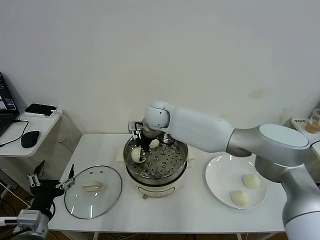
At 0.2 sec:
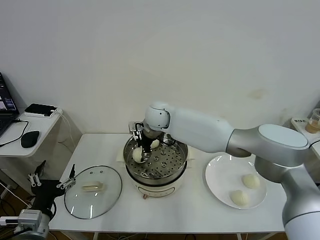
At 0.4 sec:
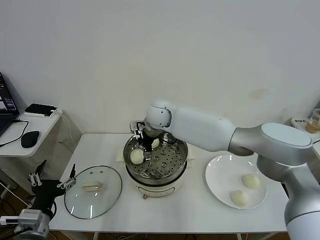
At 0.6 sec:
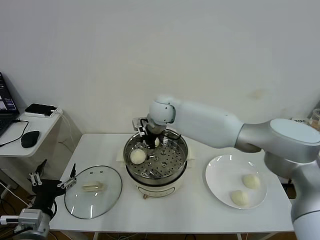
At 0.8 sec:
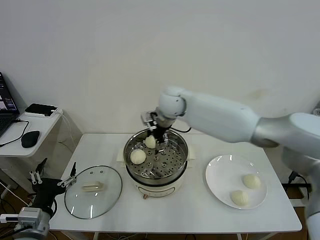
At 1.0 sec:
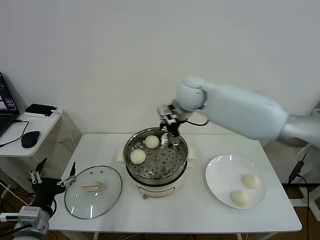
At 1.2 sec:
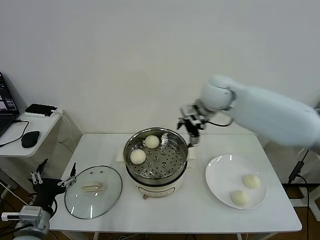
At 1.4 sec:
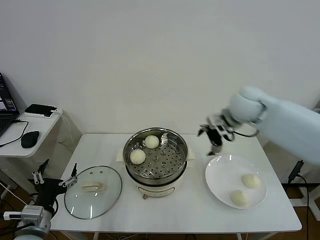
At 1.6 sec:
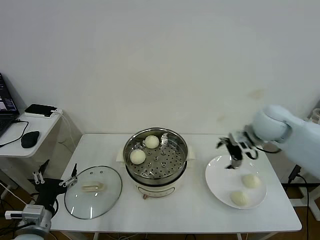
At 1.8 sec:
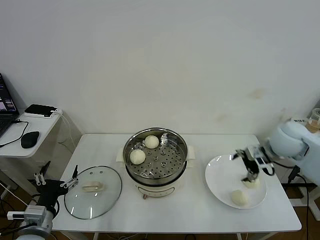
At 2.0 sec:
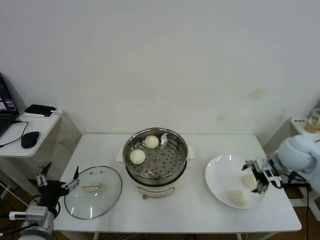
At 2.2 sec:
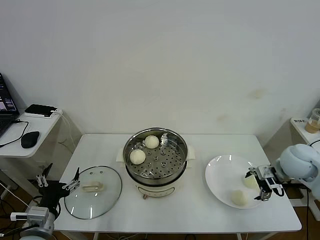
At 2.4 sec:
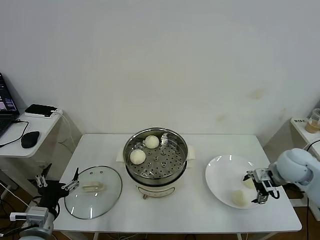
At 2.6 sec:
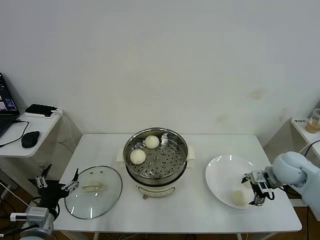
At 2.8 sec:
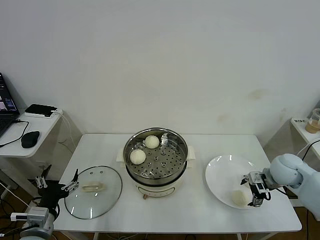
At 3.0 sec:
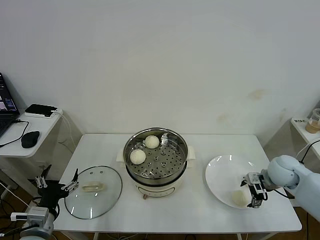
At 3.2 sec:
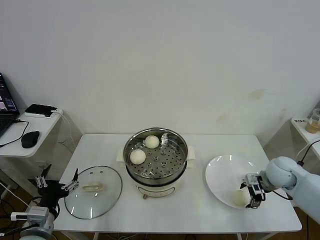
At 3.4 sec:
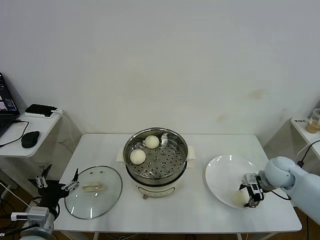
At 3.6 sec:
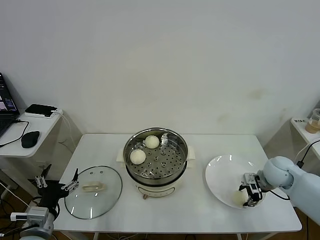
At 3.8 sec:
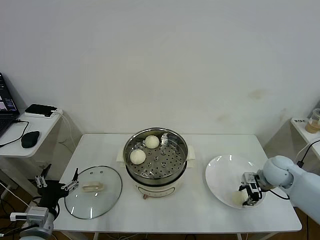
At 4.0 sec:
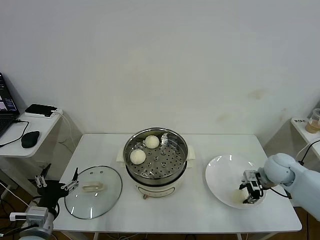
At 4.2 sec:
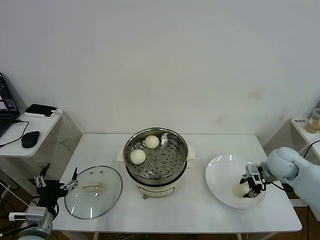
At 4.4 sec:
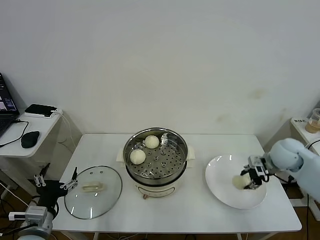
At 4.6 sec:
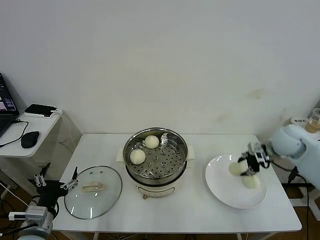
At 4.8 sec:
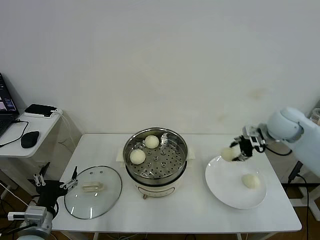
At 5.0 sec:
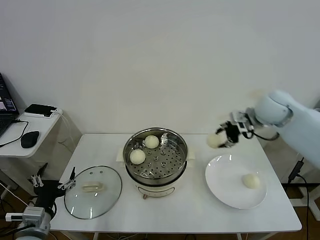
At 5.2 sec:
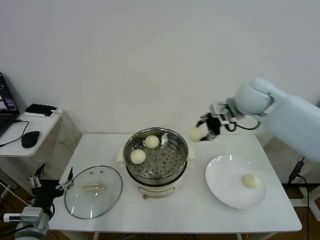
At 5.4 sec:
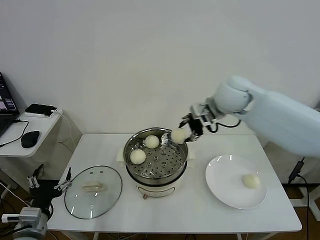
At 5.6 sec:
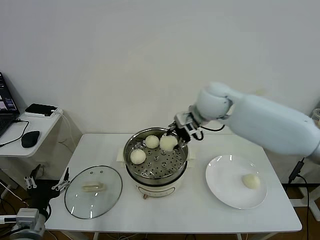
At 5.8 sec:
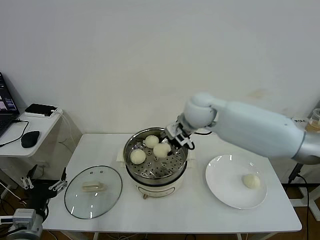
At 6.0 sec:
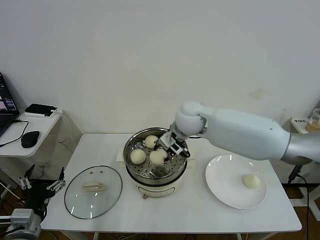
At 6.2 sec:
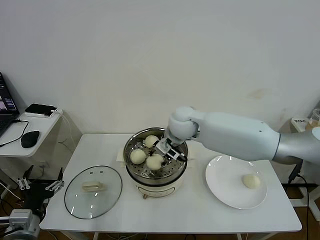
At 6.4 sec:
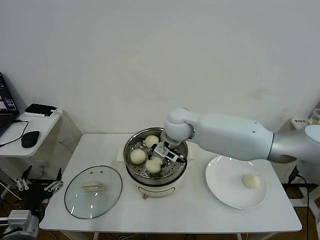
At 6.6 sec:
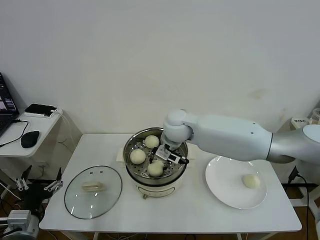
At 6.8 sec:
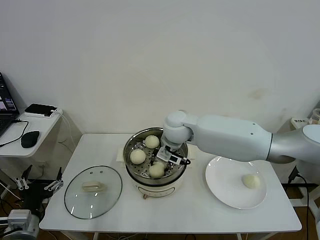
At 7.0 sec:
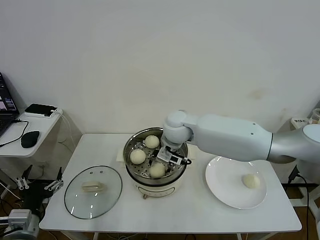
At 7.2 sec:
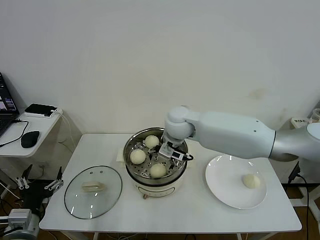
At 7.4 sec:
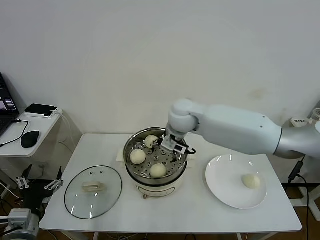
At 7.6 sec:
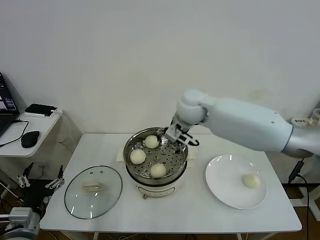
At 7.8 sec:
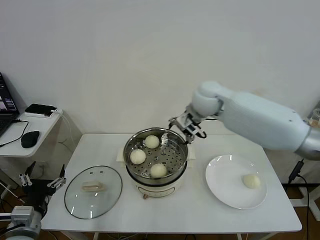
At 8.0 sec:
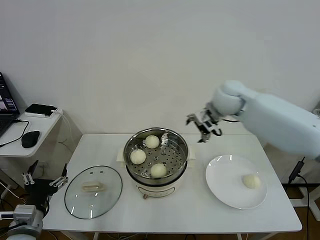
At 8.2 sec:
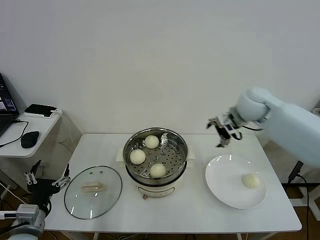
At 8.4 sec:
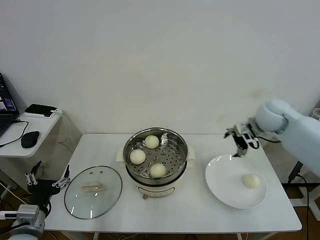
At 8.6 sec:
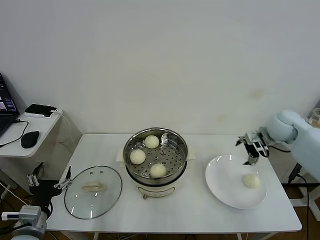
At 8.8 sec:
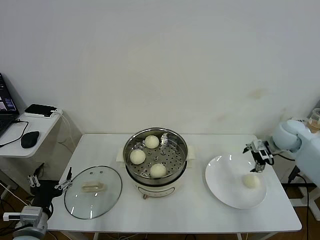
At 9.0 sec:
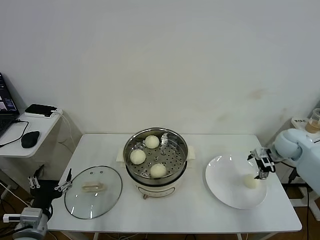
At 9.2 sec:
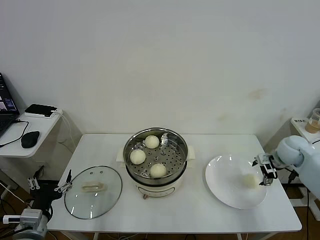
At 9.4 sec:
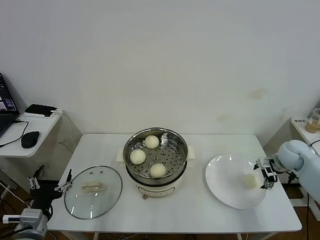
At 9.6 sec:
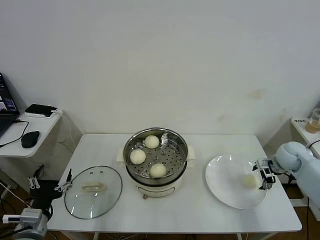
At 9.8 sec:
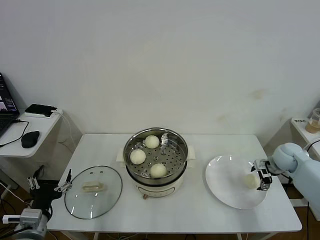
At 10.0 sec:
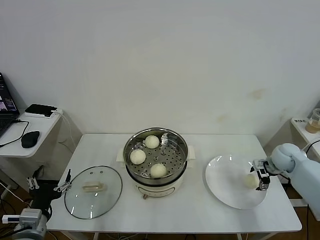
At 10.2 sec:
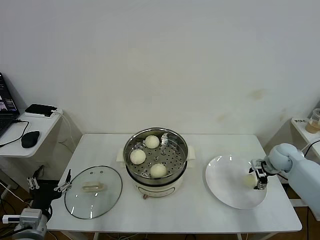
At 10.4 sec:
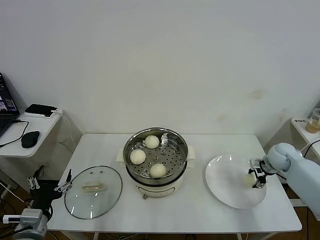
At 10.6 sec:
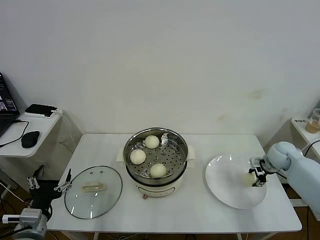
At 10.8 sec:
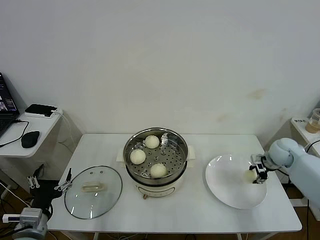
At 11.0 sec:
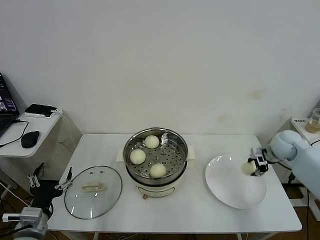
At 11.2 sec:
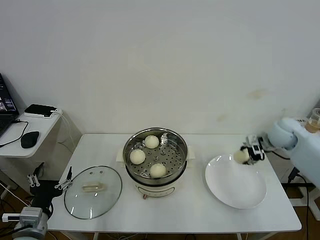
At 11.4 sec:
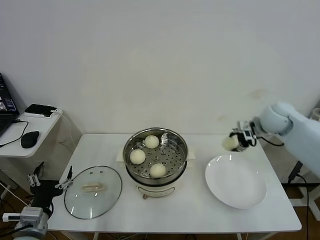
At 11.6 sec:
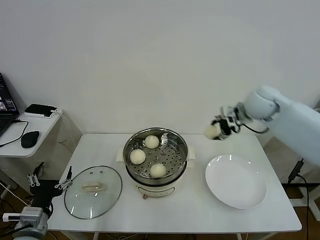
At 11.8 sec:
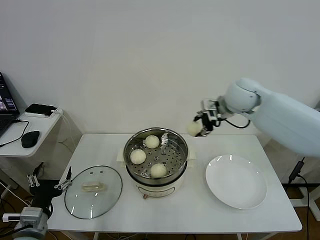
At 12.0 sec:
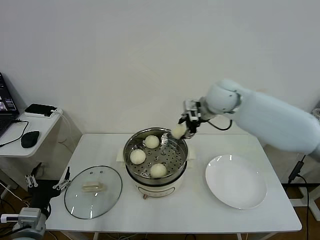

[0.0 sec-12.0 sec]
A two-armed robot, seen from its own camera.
Task of the whole recording: take steamed baozi put them in steamer then cover it.
Step, 0.6 sec to 3.8 sec: Grasp the baozi in the plate with right gripper.
Step, 4.0 sec to 7.2 sec: Place the baozi on the steamer with right gripper.
Step, 7.4 sec to 10.6 sec: Grasp the baozi in the plate with right gripper.
0.0 sec to 1.6 sec: The right gripper moves to the right, some 35 cm, and opens up.
1.6 sec to 3.0 sec: The right gripper moves downward and to the right, roughly 15 cm.
3.0 sec to 4.4 sec: The right gripper ends up about 5 cm from where it was, and closes.
4.4 sec to 6.0 sec: The right gripper is displaced to the left by about 30 cm.
6.0 sec to 7.6 sec: The right gripper opens its fingers.
7.6 sec to 9.0 sec: The right gripper moves to the right, approximately 35 cm.
9.0 sec to 10.4 sec: The right gripper heads downward, covering roughly 10 cm, and closes.
10.4 sec to 12.0 sec: The right gripper travels to the left and upward by about 35 cm.

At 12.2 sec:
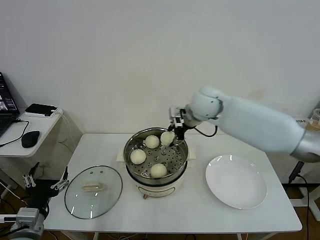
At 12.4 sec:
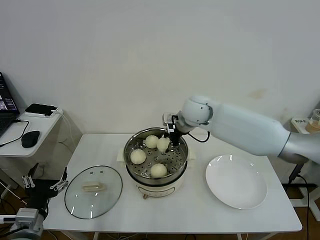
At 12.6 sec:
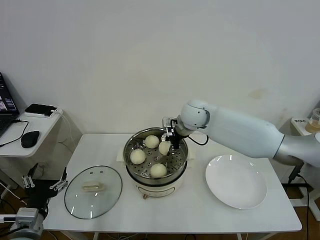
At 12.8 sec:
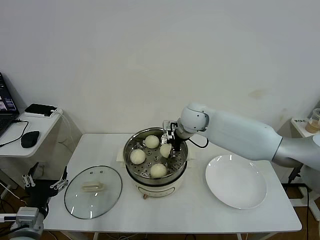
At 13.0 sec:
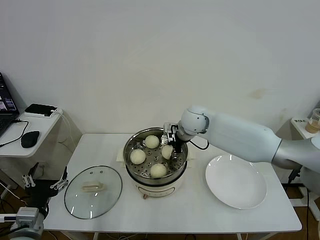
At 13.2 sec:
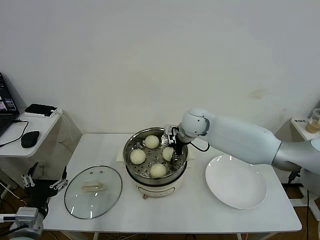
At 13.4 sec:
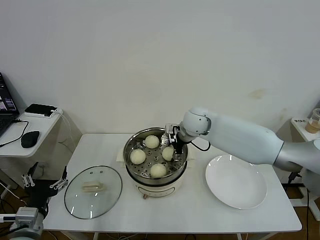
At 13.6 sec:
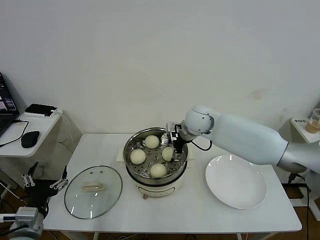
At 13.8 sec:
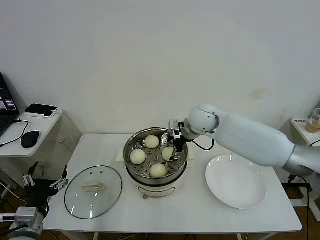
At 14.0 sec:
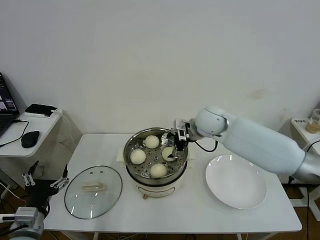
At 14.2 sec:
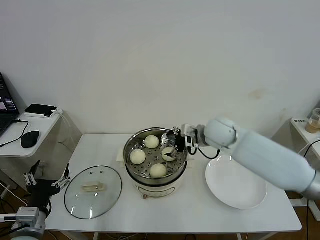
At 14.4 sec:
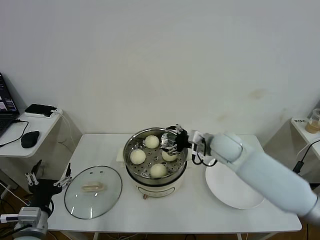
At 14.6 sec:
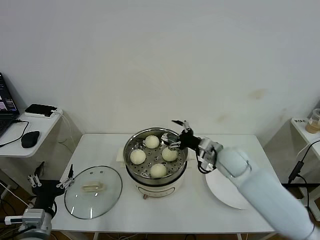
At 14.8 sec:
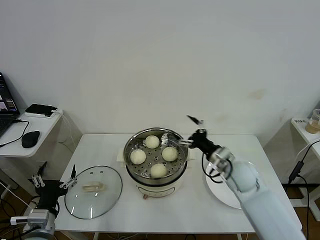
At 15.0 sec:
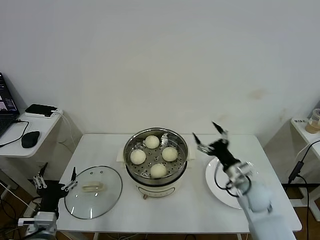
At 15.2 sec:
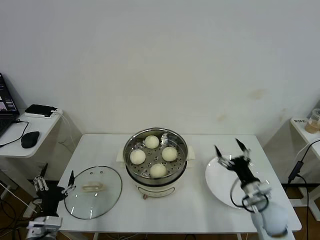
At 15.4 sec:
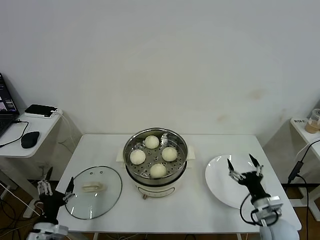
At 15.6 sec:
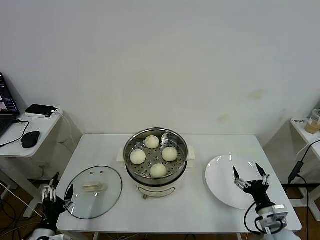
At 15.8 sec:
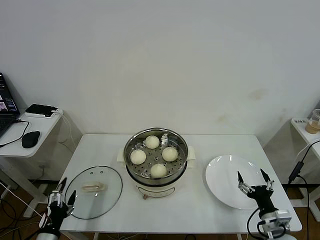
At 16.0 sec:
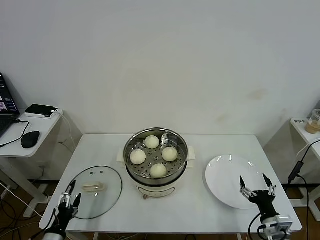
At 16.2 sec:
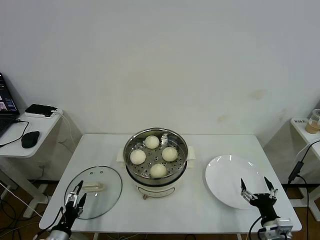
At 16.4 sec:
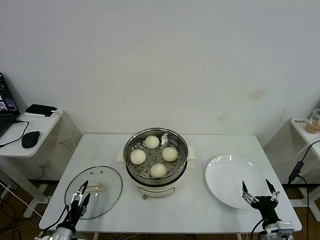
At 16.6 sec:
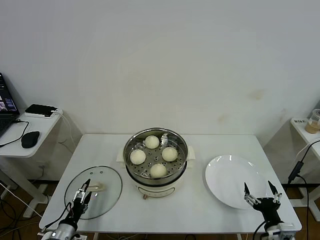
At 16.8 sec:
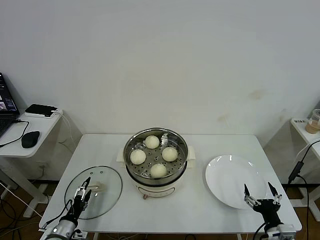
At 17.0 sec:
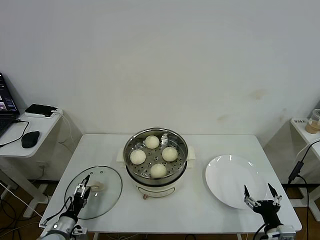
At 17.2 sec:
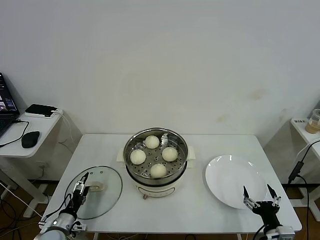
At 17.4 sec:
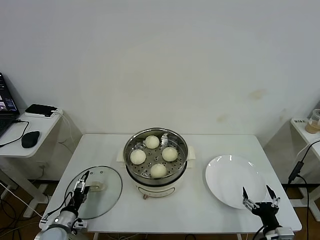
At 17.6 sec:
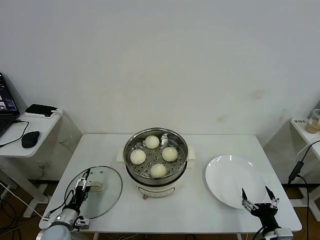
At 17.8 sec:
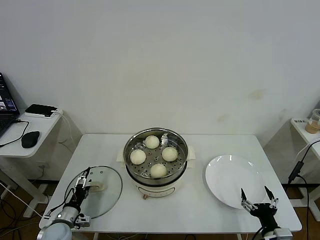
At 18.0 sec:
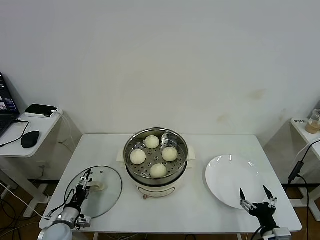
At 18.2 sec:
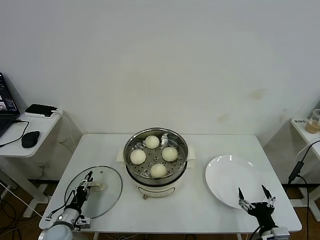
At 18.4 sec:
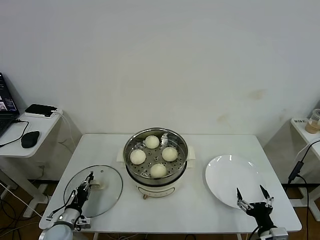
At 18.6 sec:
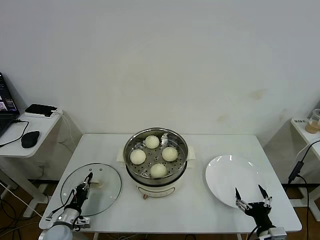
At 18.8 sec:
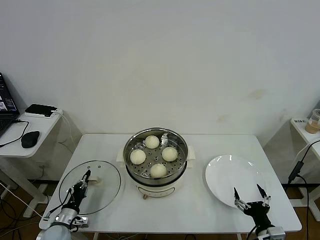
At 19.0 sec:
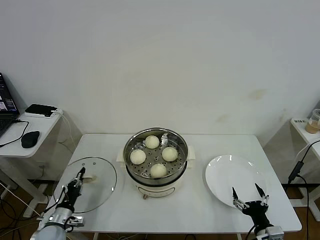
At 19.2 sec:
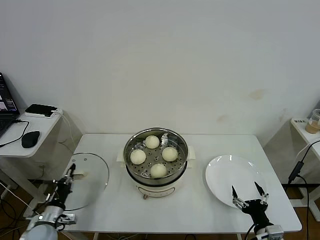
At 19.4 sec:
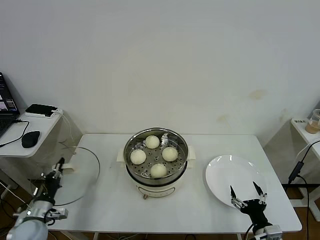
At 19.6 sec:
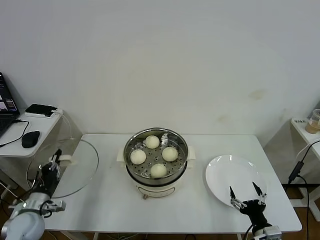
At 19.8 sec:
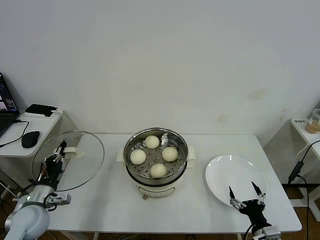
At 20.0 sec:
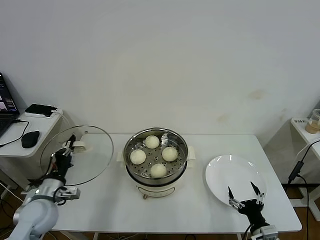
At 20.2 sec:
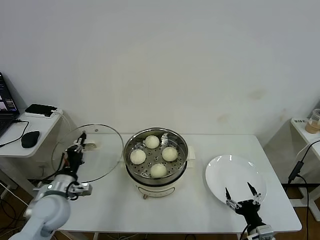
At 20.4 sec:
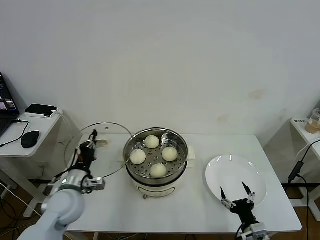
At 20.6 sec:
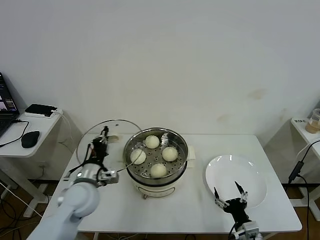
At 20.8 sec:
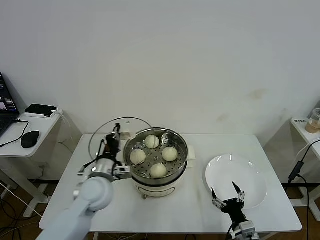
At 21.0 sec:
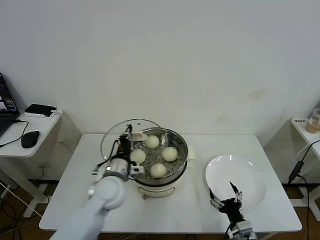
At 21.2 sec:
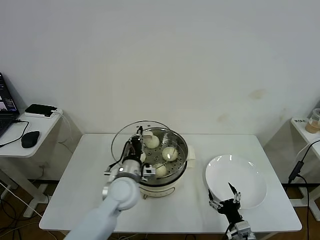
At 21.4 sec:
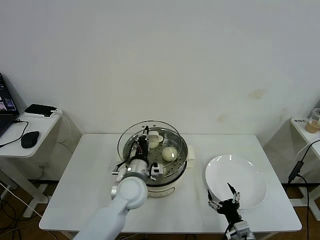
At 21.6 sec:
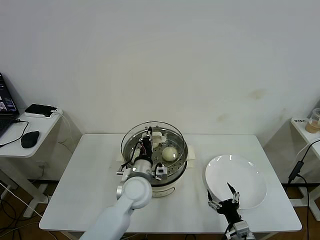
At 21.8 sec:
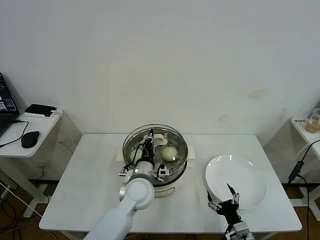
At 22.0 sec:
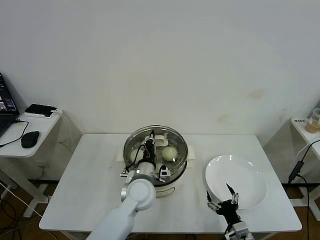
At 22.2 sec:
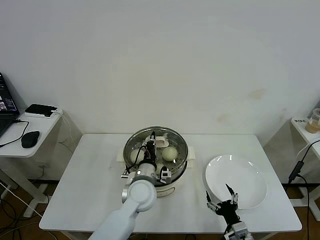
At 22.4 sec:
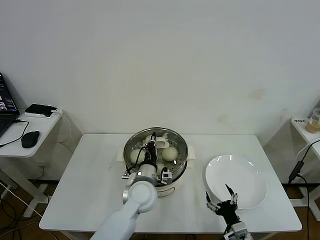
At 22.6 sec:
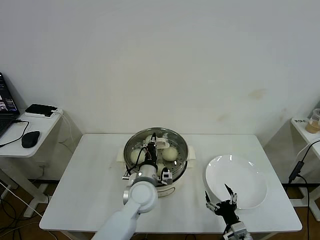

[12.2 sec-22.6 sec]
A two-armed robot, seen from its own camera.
Task of the whole recording: take steamed baozi put them in steamer then cover it.
Step, 13.8 sec to 18.4 sec: Grasp the pot lid with left gripper.
12.2 sec to 13.6 sec: The right gripper heads downward, covering approximately 5 cm, and opens.
13.6 sec to 15.2 sec: The left gripper shifts some 5 cm downward; the right gripper travels backward, to the right and downward by roughly 35 cm.
15.2 sec to 16.6 sec: The right gripper shifts some 15 cm backward; the left gripper travels downward by some 15 cm.
16.6 sec to 18.2 sec: The left gripper moves forward, some 5 cm.
18.2 sec to 19.6 sec: The left gripper goes roughly 10 cm upward, and closes.
19.6 sec to 21.2 sec: The left gripper is displaced to the right by about 30 cm, while the right gripper heads to the left, covering some 5 cm.
21.2 sec to 22.6 sec: The left gripper shifts approximately 5 cm to the right.
